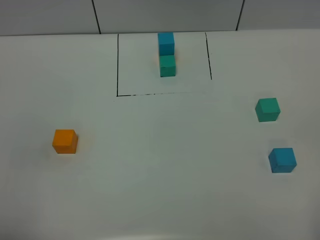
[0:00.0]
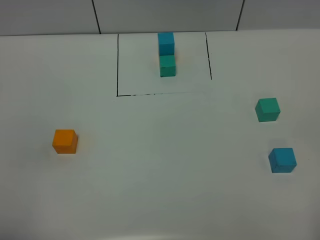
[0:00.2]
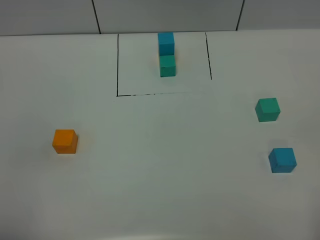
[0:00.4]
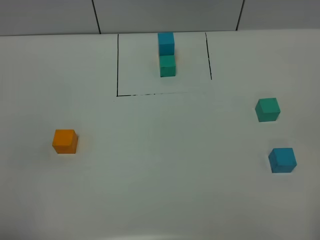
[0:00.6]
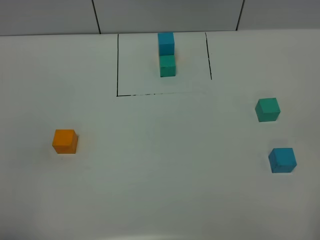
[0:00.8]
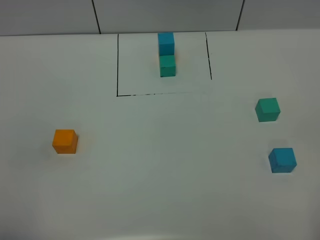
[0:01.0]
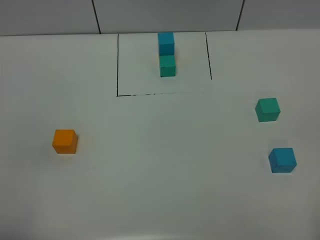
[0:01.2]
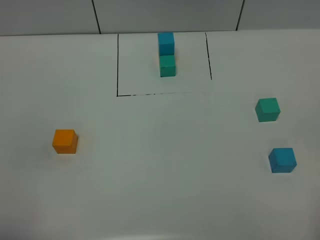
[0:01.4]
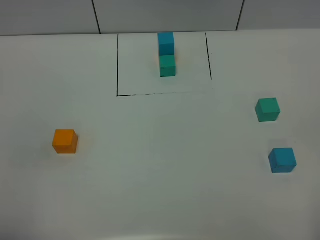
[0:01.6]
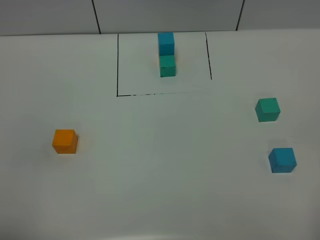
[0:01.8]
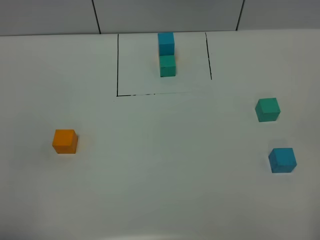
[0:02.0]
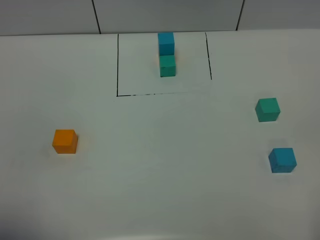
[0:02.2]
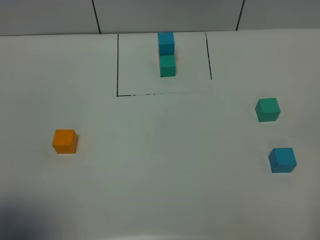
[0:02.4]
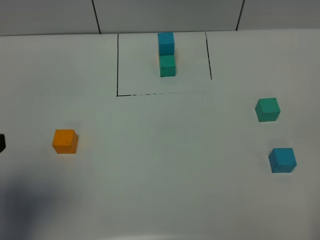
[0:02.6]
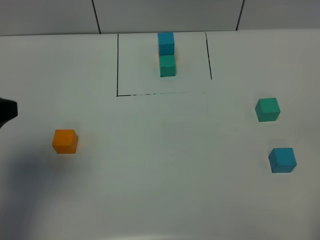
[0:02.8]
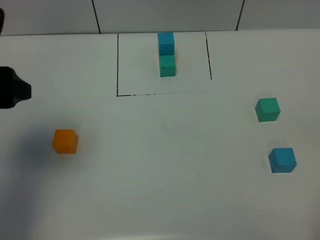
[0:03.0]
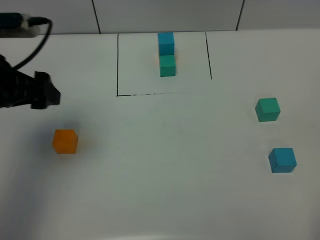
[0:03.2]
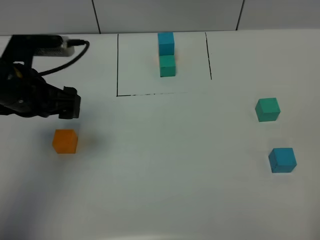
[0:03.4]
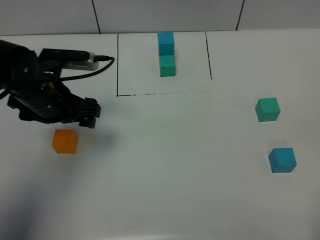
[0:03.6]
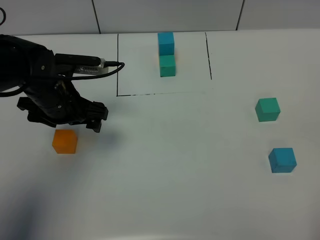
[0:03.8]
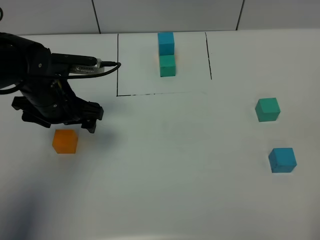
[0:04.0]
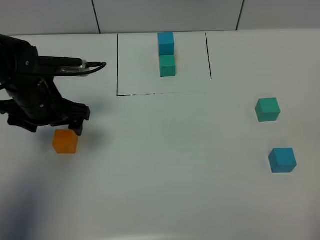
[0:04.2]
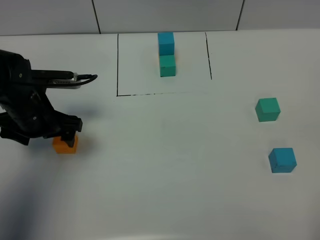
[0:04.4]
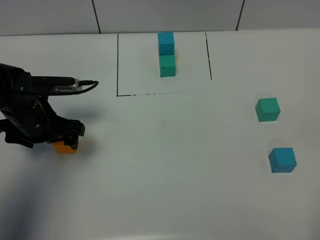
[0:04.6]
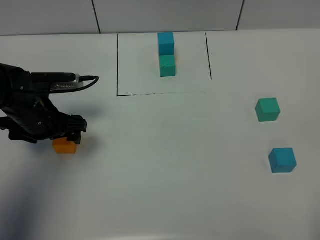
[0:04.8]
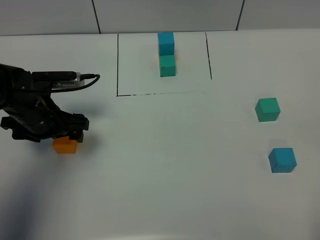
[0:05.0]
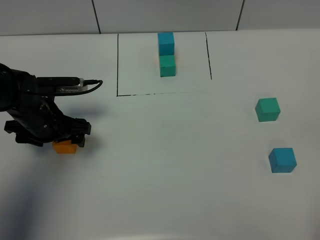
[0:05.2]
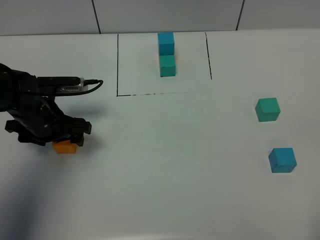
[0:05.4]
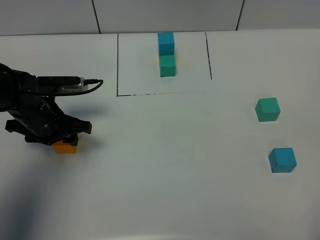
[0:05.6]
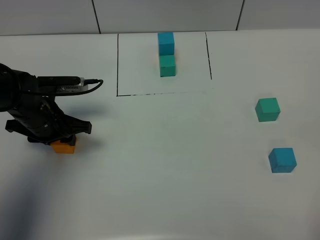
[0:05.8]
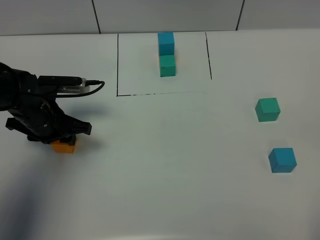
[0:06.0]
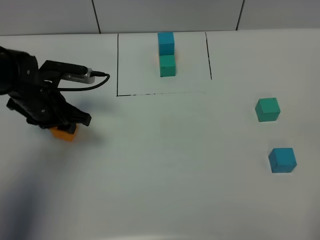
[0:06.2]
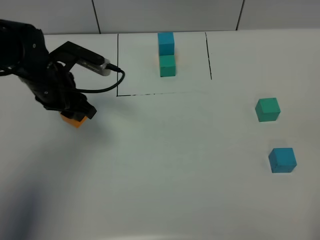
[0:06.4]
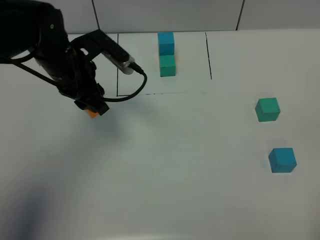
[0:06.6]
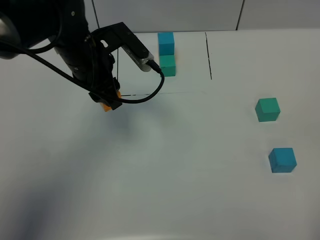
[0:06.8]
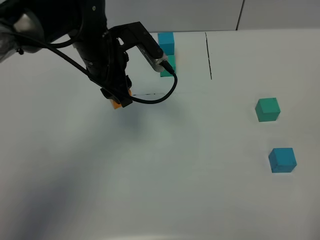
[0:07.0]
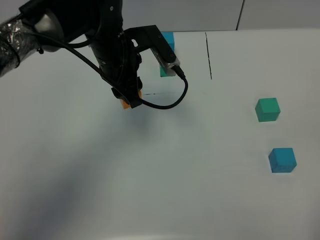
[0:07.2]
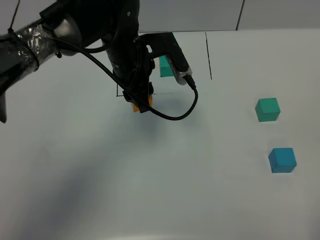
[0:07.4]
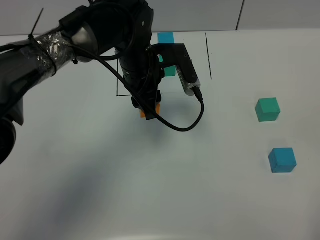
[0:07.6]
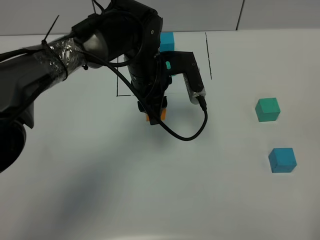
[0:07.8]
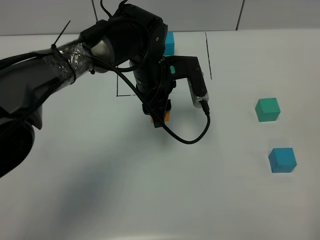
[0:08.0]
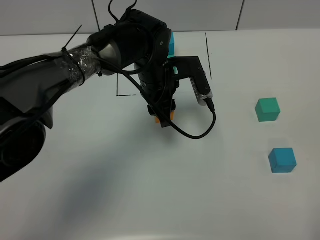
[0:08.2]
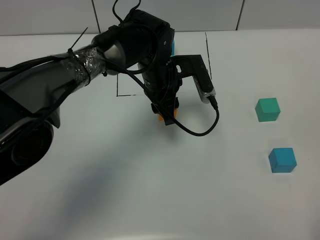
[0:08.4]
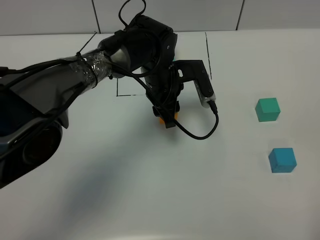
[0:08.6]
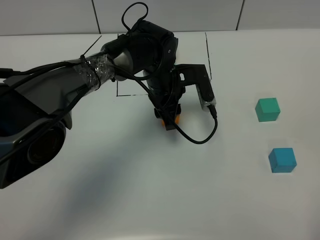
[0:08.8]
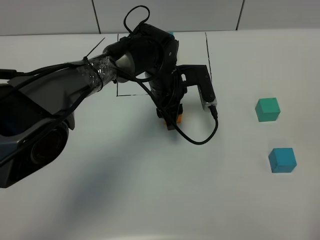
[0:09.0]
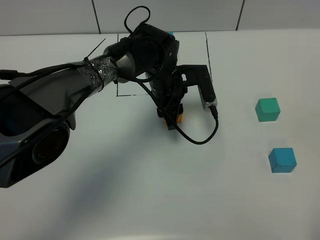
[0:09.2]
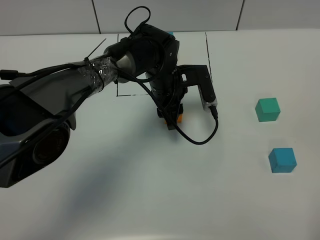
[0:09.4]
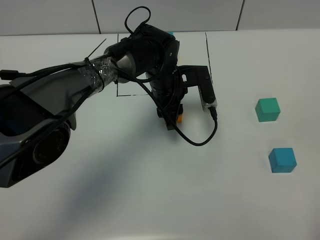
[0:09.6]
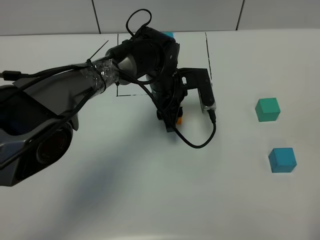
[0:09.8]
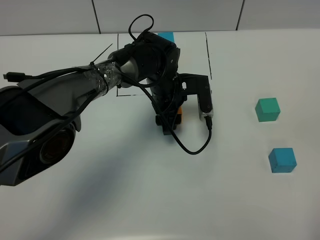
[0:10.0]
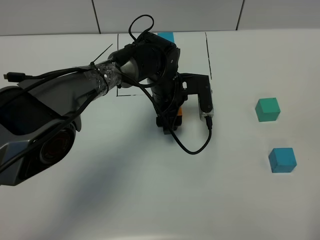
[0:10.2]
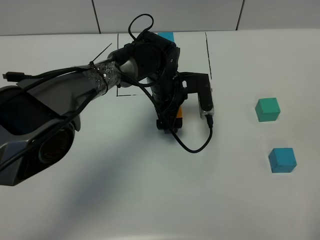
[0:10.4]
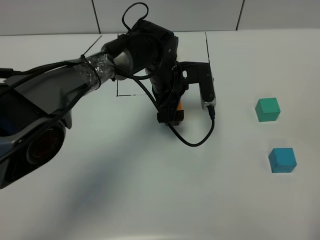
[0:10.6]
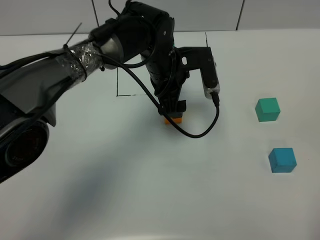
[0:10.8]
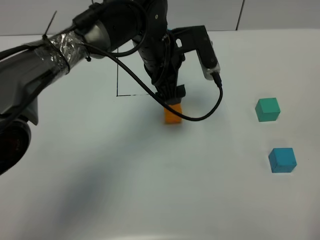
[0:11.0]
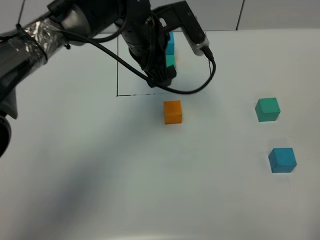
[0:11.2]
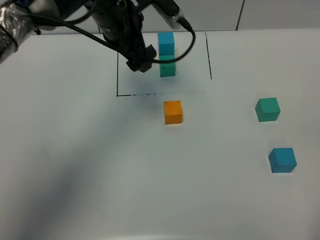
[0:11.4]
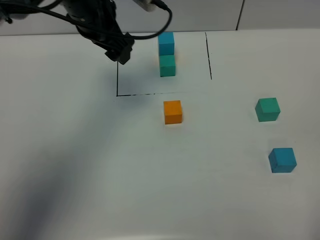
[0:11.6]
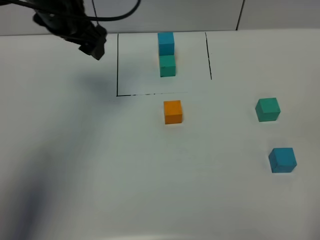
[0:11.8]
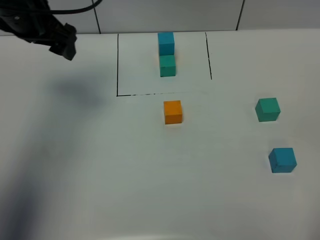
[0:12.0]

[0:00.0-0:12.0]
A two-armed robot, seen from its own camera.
Task of the whole recording: According to the building block template in front, assemble the scattered blocks together.
Step, 0:00.0 to 0:10.0: Put the orange build block in the center of the table.
0:00.0 to 0:01.6: Neither gripper changes place.
0:01.6 to 0:03.0: The left gripper shifts roughly 25 cm forward.
0:03.0 to 0:04.4: The left gripper travels downward and forward by some 20 cm.
0:04.4 to 0:06.0: The left gripper closes up.
0:06.0 to 0:07.6: The left gripper shifts roughly 20 cm to the right.
0:07.6 to 0:09.0: The left gripper goes some 5 cm downward.
0:09.0 to 0:10.4: The left gripper opens up.
0:10.4 to 0:12.0: The left gripper travels to the left and upward by some 30 cm.

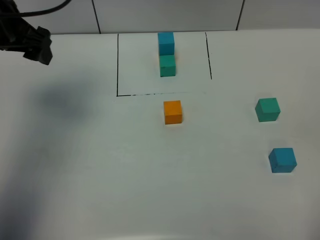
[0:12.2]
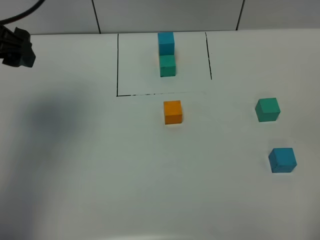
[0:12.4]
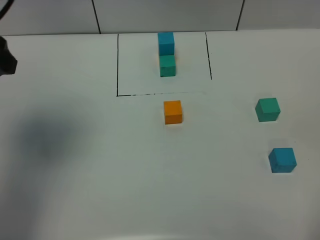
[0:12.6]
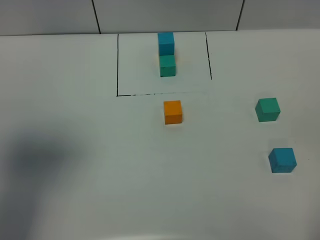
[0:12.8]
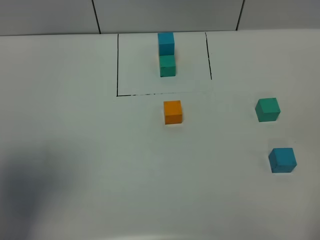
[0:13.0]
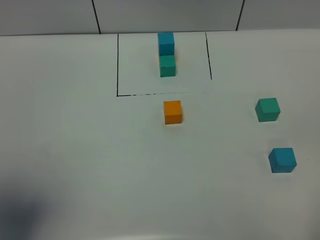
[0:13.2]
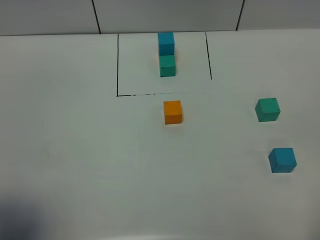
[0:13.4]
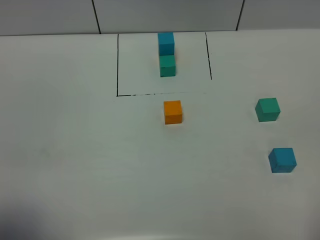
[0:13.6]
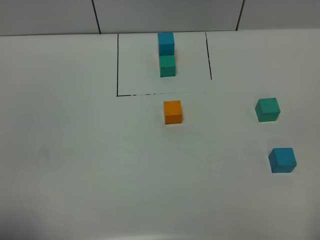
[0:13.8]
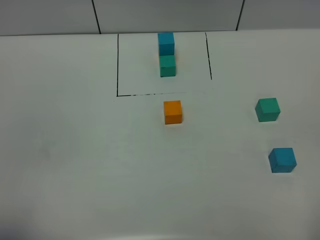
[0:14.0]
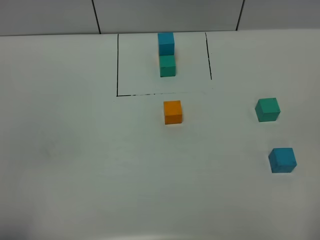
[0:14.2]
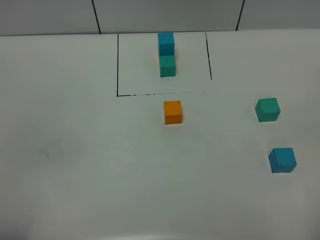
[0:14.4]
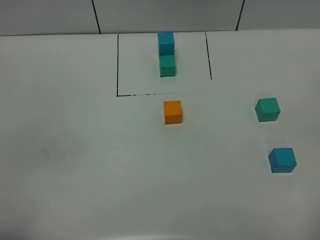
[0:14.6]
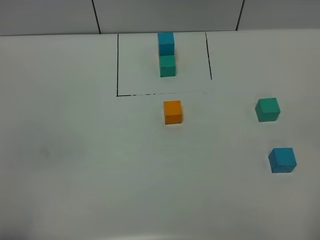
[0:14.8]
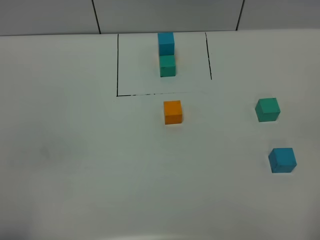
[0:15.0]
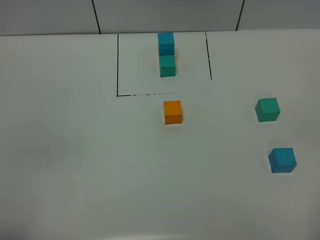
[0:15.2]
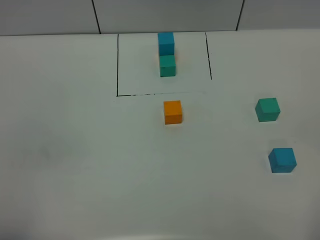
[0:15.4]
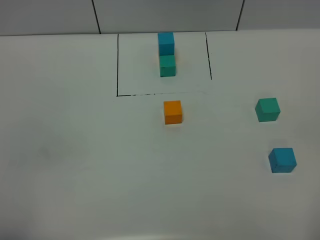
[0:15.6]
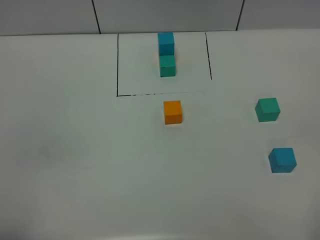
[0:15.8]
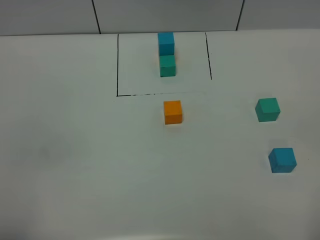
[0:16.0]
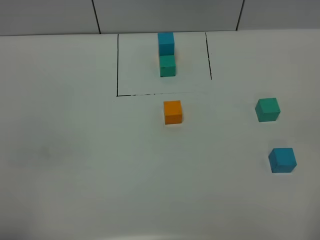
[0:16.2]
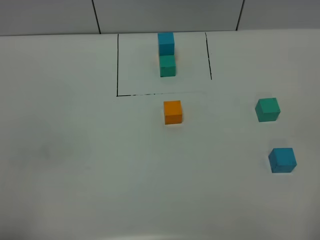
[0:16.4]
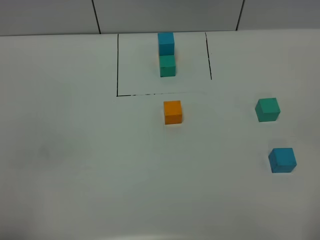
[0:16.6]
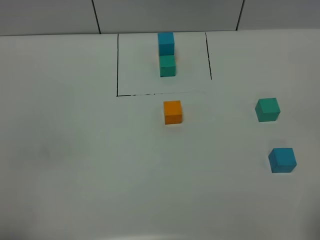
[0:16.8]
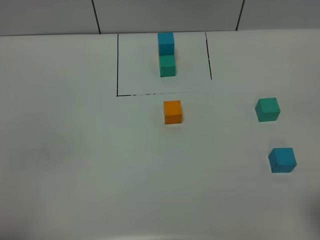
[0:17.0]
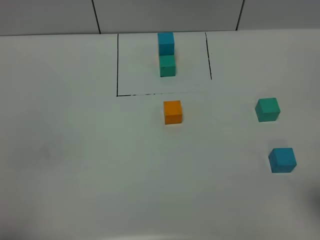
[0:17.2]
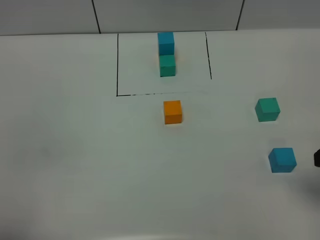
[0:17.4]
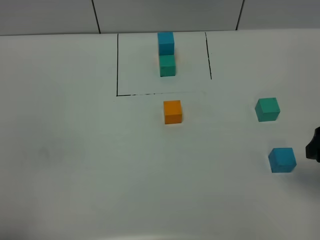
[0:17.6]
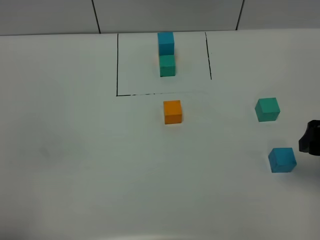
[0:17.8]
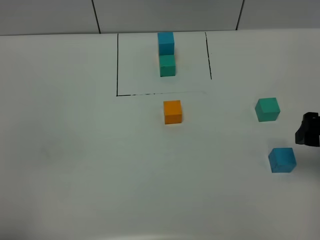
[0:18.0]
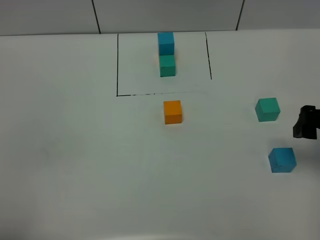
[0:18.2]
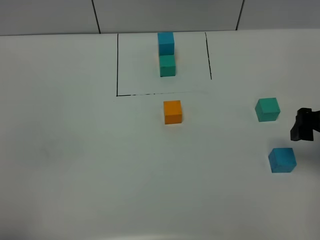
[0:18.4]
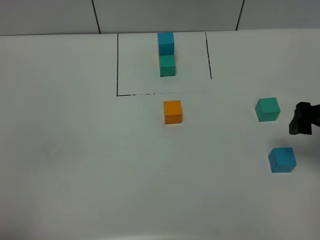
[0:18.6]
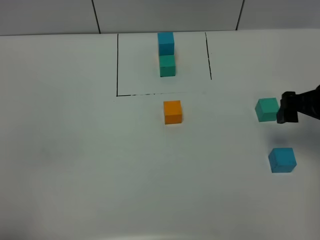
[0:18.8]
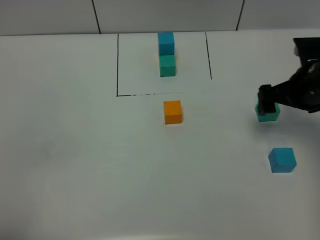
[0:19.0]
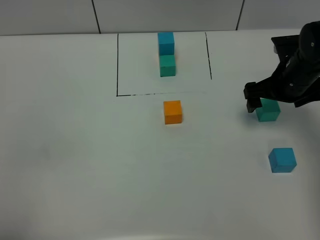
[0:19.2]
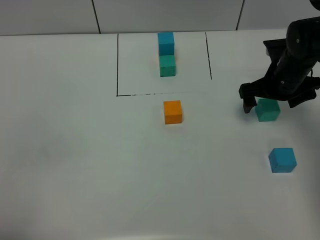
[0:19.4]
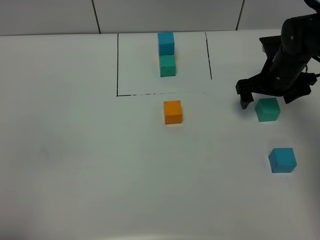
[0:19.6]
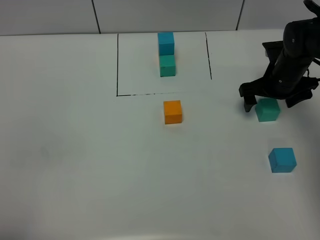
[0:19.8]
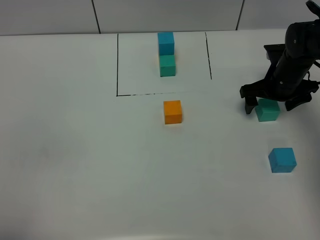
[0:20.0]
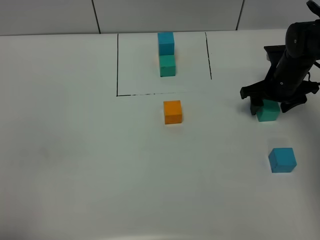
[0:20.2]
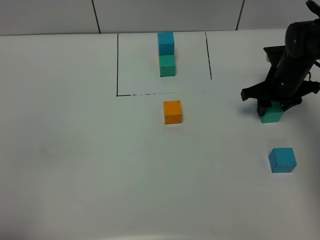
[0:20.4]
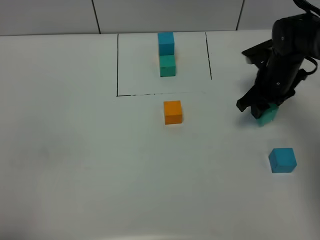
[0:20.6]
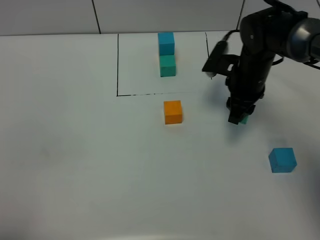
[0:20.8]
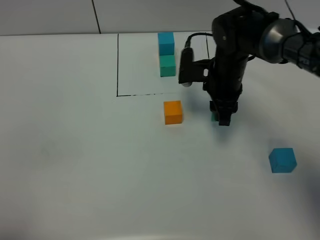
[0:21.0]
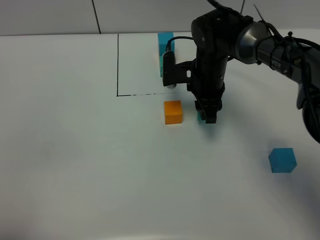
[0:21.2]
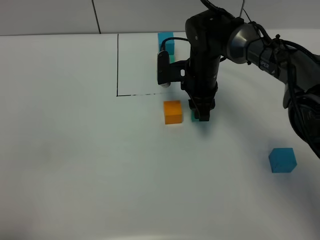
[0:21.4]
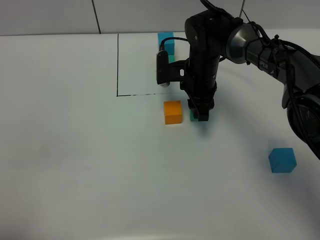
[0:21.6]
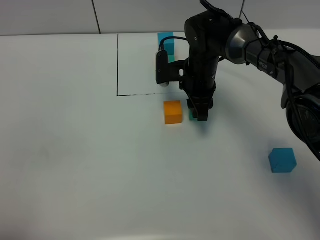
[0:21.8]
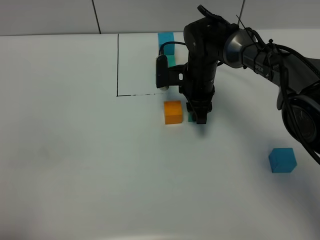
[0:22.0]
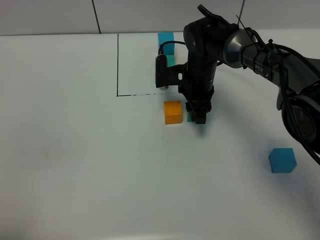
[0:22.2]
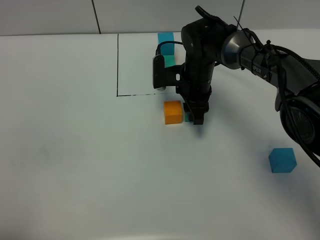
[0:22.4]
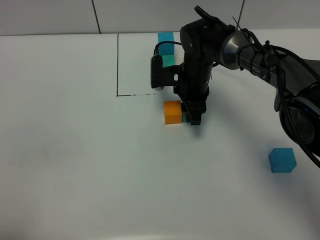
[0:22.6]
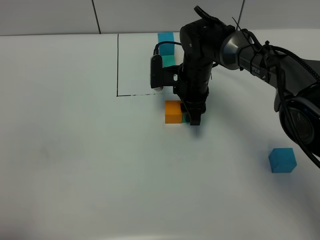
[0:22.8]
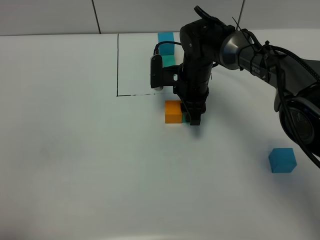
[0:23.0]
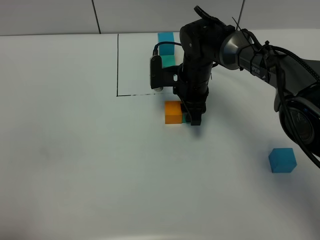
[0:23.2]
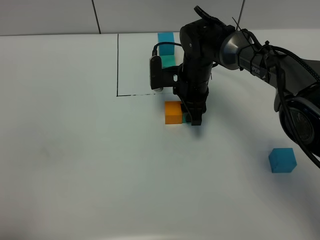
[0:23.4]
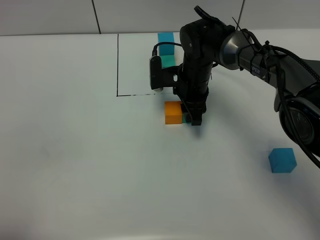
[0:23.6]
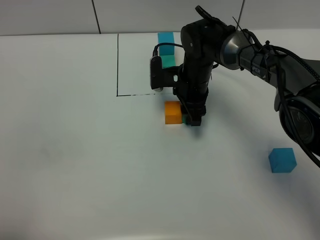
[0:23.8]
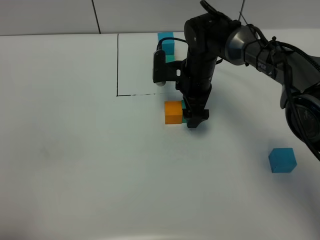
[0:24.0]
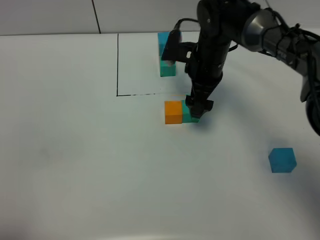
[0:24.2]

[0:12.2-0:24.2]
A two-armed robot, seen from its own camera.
Task of the whole recording: According to the building block template in front, assemble the scattered blocks together.
Step, 0:12.2 to 0:24.0: Put the green build block on the right of the orange build block.
0:12.2 to 0:13.8: The left gripper is displaced backward by some 35 cm.
0:15.2 to 0:16.6: Both grippers stay about where they are.
0:16.6 to 0:18.2: The right gripper shifts roughly 25 cm forward.
0:18.2 to 0:19.8: The right gripper heads forward and downward, covering approximately 20 cm.
0:19.8 to 0:21.2: The right gripper travels to the left by about 15 cm, and closes up.
0:21.2 to 0:22.6: There are only small adjustments of the grippers.
0:22.6 to 0:24.2: The right gripper heads upward, covering about 5 cm, and opens up.
